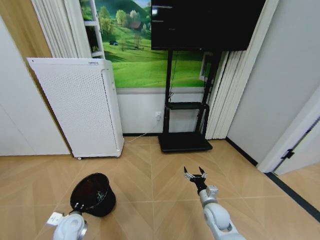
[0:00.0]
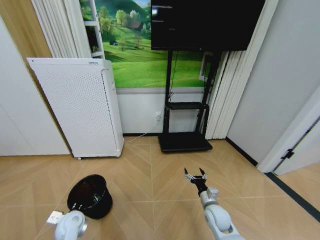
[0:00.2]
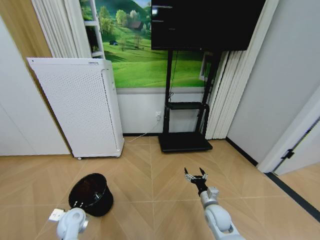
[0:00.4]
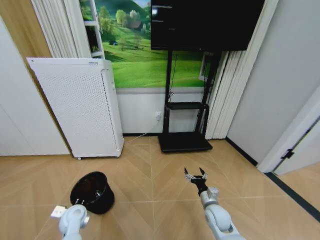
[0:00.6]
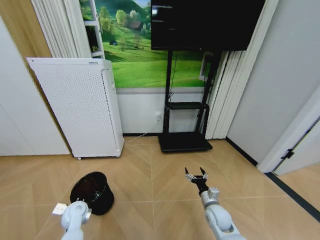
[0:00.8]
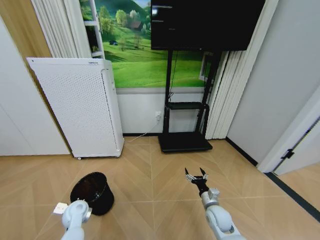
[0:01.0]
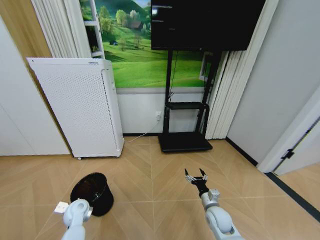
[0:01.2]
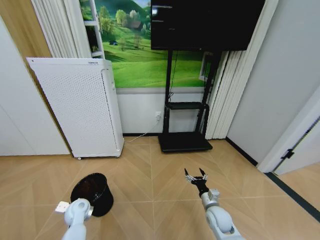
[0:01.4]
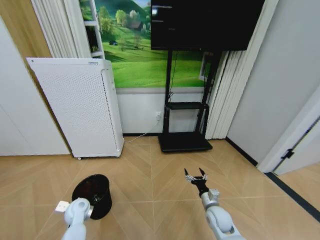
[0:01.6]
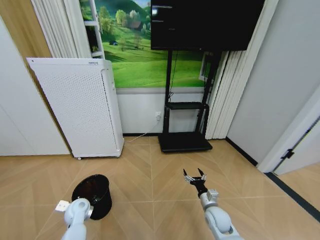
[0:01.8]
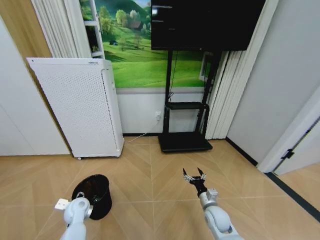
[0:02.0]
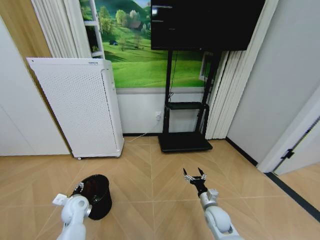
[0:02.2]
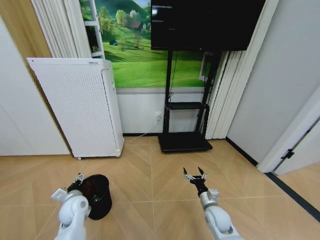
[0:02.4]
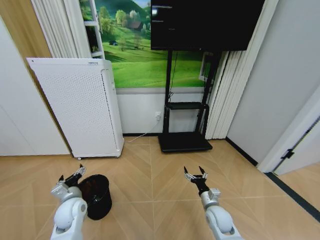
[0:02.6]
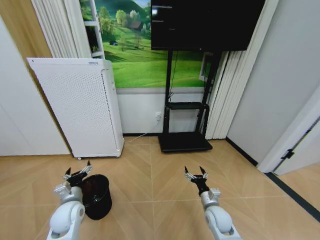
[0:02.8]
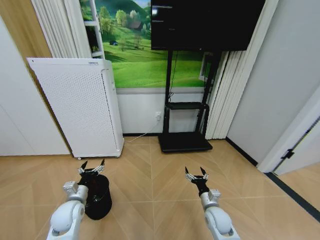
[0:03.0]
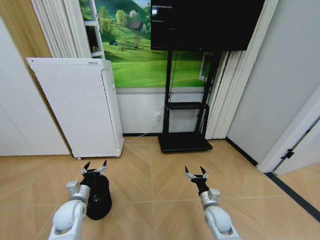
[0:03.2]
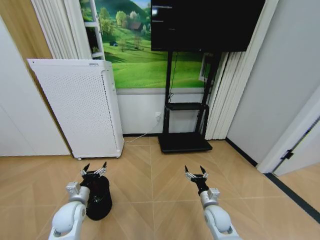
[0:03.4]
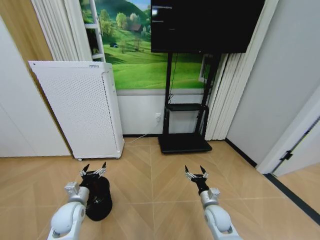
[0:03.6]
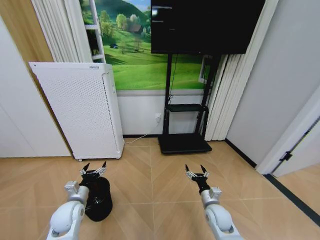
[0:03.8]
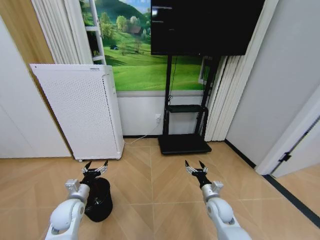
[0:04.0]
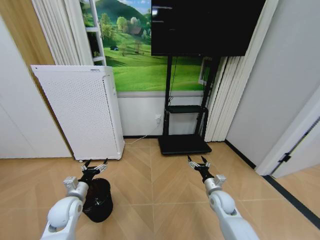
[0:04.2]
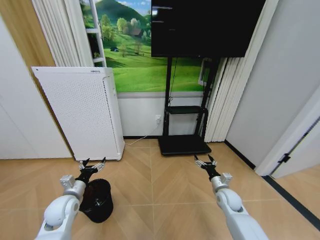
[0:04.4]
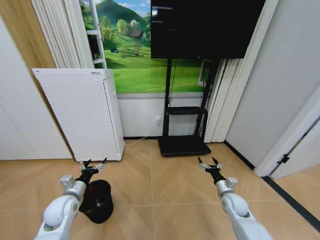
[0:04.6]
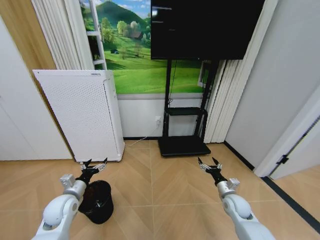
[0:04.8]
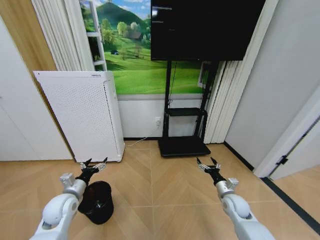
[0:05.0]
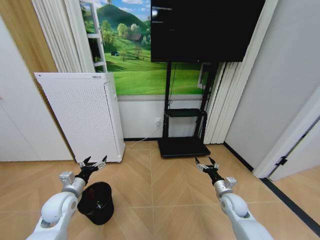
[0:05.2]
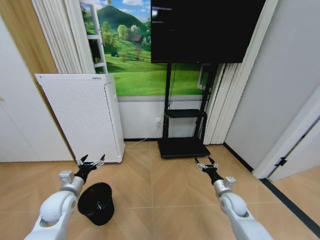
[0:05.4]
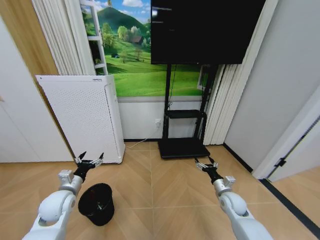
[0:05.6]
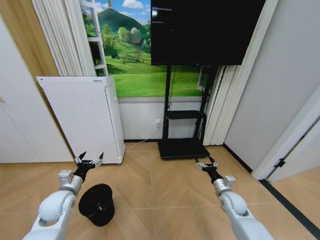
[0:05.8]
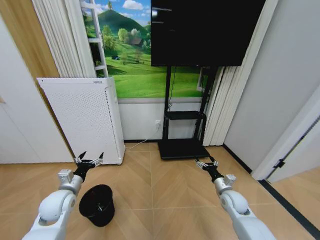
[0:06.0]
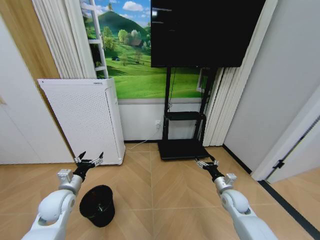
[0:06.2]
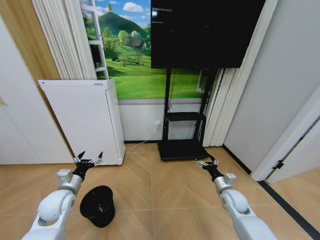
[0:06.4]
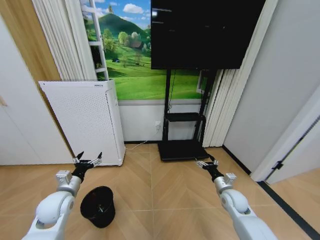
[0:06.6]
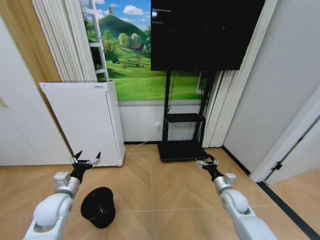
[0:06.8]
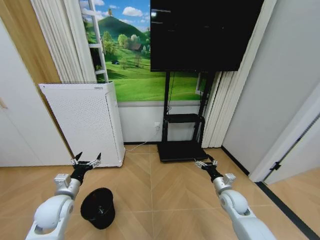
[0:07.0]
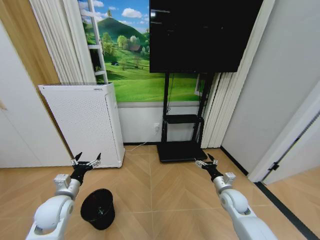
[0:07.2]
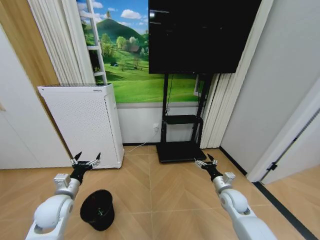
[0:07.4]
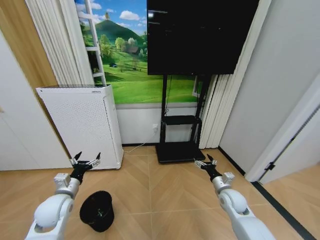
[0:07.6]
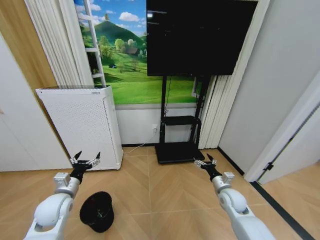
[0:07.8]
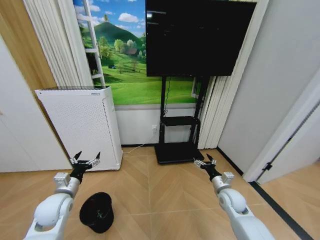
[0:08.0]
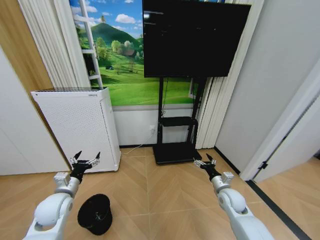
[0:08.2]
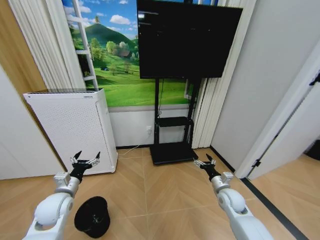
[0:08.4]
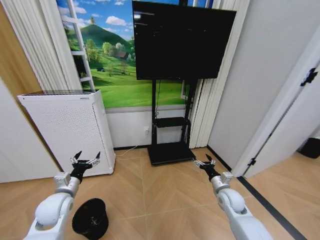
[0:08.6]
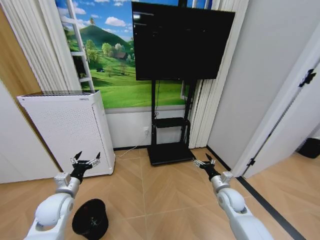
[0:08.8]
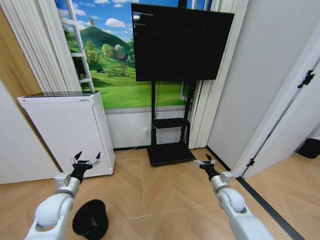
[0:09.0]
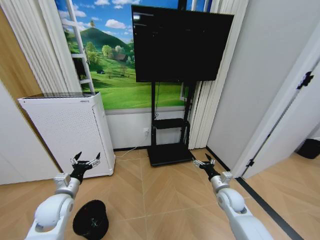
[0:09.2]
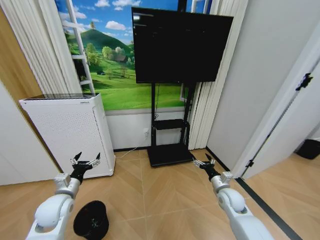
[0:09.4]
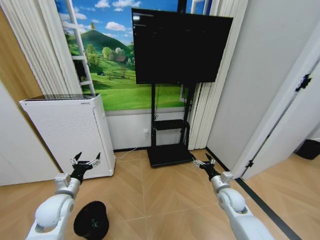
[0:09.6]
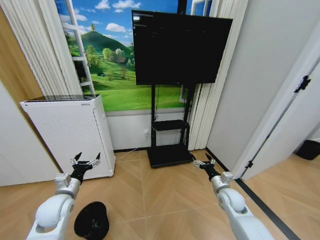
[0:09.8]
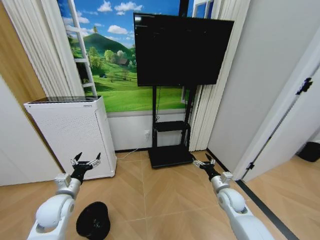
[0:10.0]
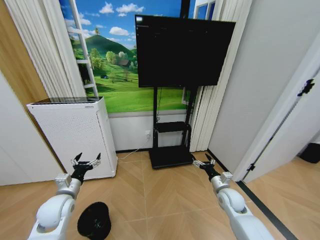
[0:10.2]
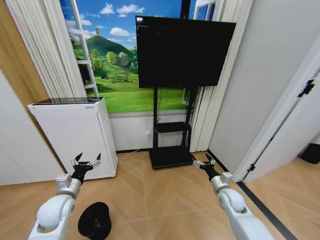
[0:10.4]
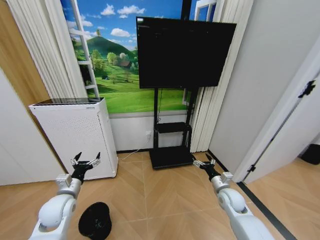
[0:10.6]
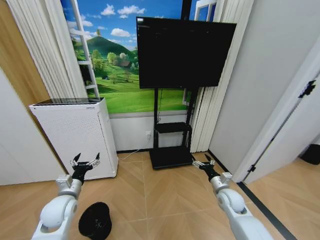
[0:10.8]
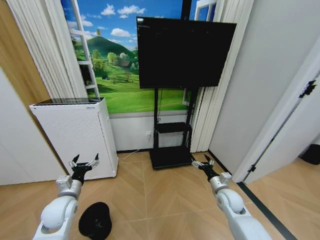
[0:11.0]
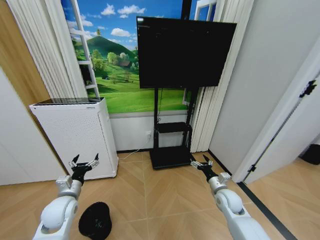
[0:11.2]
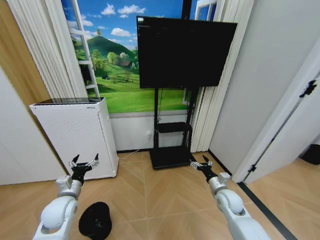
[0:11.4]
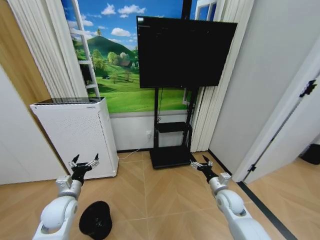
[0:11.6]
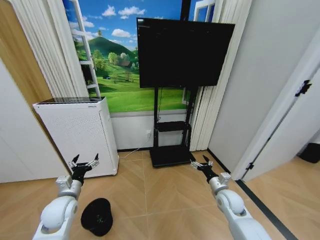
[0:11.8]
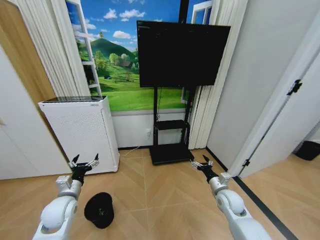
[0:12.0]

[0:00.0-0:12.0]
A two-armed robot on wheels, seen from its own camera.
Task of the whole recording: Pick up the trash bin and place the garbage on the floor into it.
0:00.0 to 0:01.6: The left gripper heads forward, covering about 5 cm.
0:01.6 to 0:03.0: The left gripper is displaced upward by some 5 cm, and opens its fingers.
0:03.0 to 0:04.4: The right gripper shifts approximately 10 cm to the right and forward.
0:04.4 to 0:06.0: The grippers stay close to where they were, moving slightly.

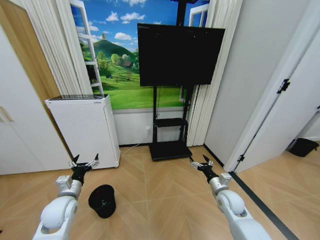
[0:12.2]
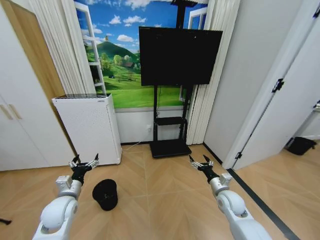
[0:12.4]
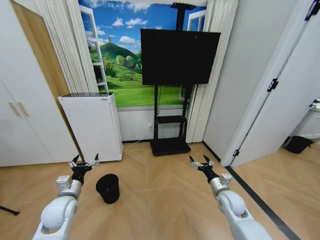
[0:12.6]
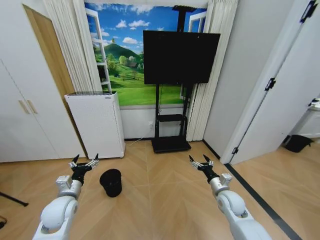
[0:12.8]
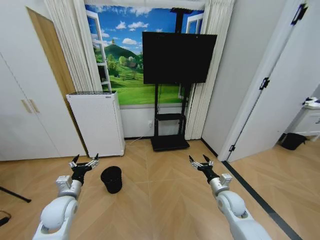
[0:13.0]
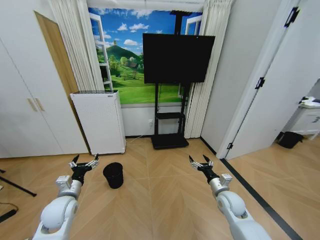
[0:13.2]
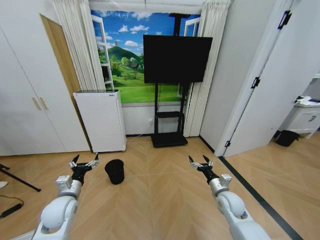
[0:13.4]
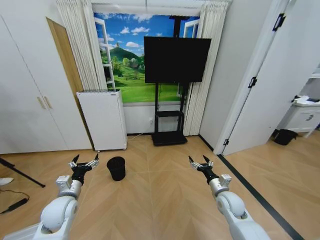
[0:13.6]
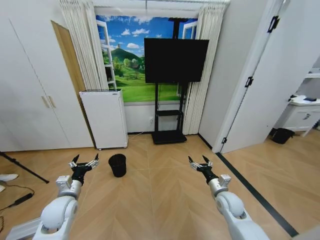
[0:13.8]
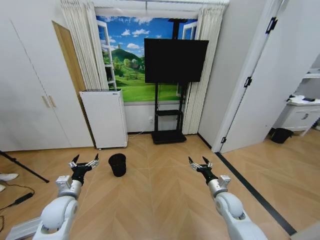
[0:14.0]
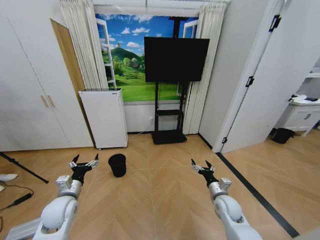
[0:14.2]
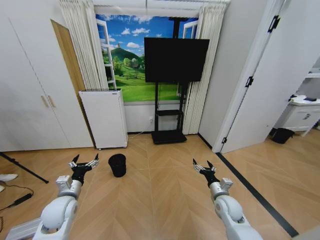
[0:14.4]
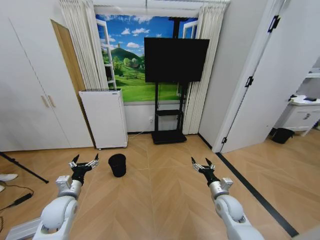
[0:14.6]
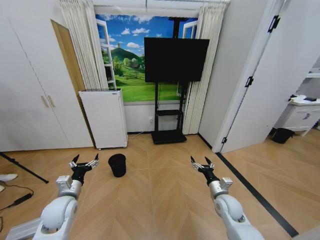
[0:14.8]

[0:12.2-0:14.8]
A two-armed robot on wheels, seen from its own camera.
Task of the whole recording: Pick up the trash bin and place the garbage on the floor into it.
0:13.4 to 0:14.8: The grippers stay close to where they were, moving slightly.

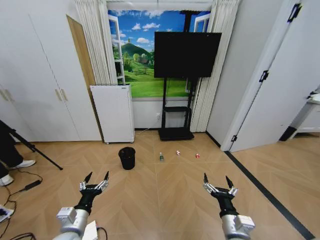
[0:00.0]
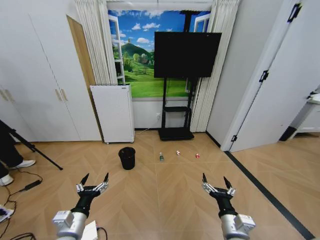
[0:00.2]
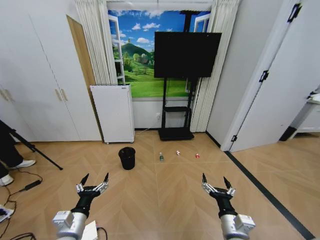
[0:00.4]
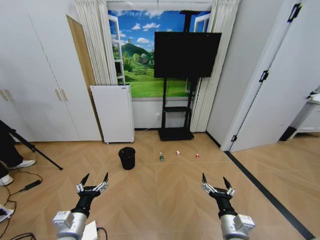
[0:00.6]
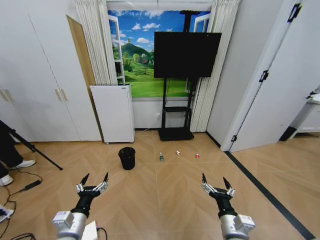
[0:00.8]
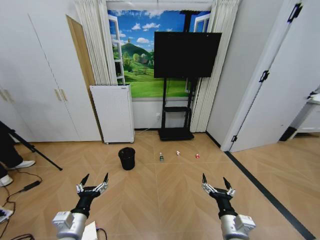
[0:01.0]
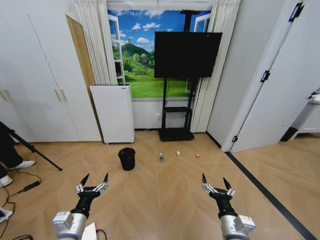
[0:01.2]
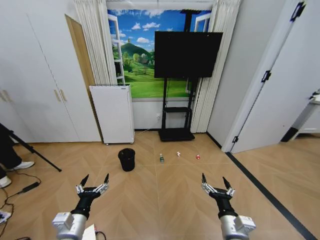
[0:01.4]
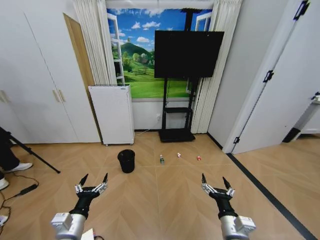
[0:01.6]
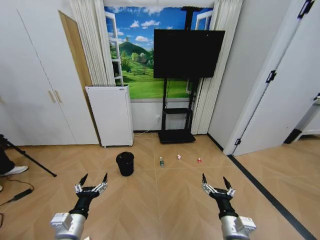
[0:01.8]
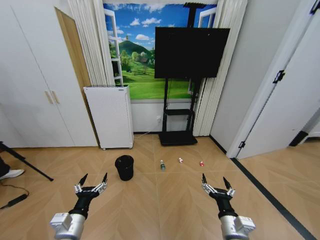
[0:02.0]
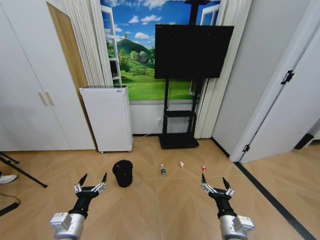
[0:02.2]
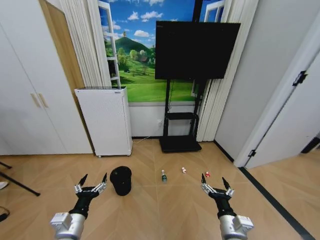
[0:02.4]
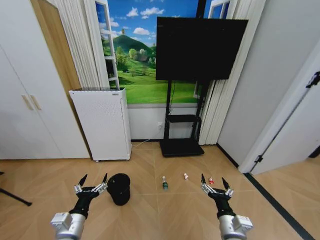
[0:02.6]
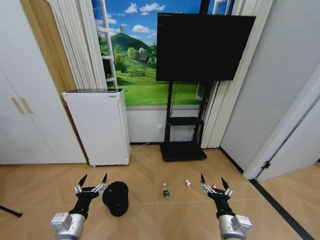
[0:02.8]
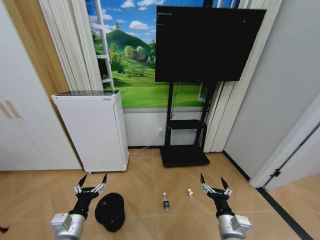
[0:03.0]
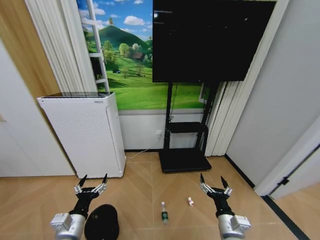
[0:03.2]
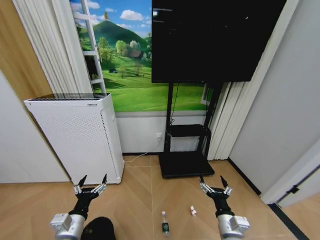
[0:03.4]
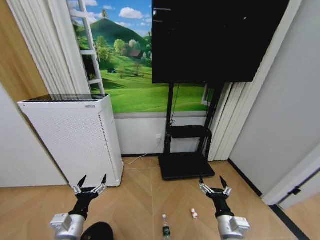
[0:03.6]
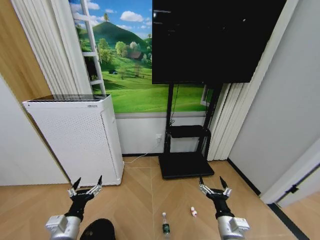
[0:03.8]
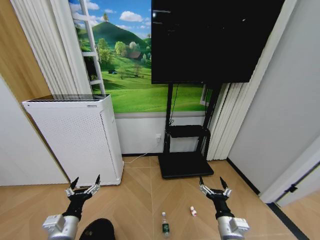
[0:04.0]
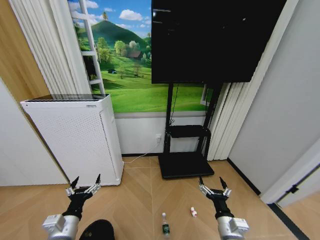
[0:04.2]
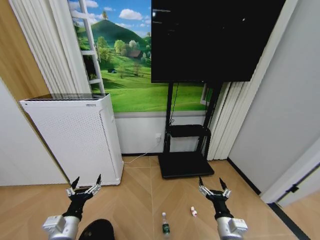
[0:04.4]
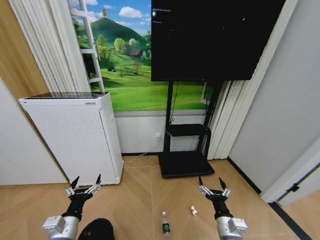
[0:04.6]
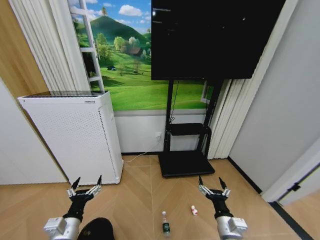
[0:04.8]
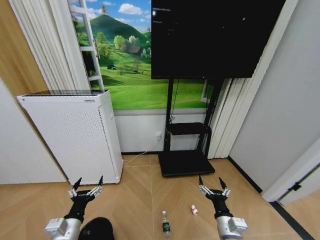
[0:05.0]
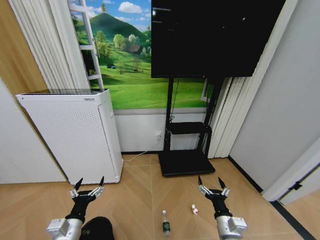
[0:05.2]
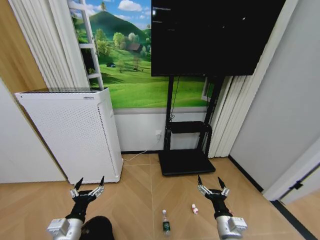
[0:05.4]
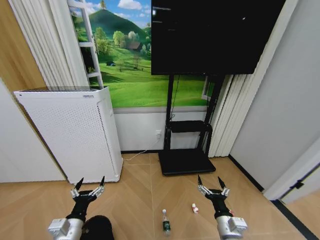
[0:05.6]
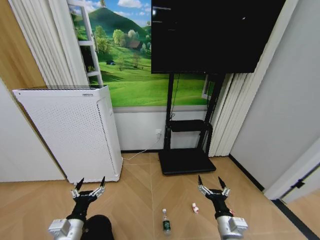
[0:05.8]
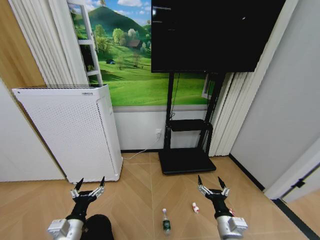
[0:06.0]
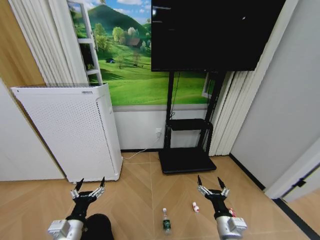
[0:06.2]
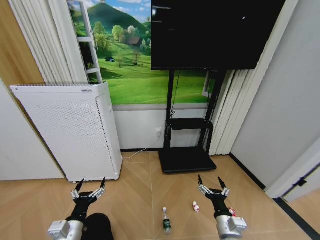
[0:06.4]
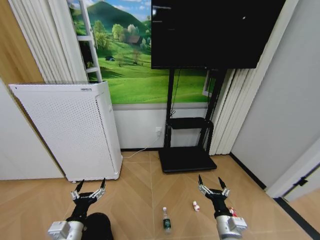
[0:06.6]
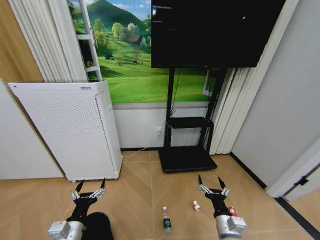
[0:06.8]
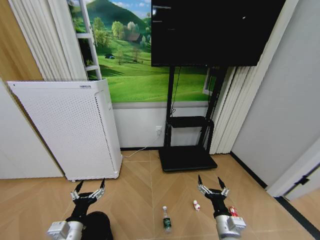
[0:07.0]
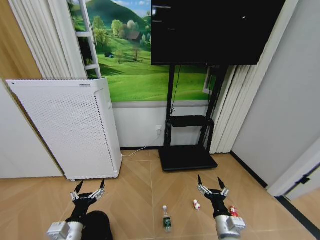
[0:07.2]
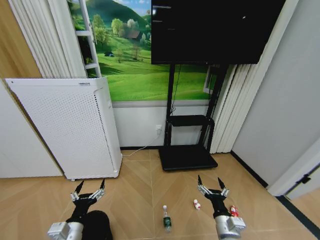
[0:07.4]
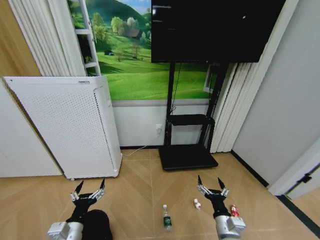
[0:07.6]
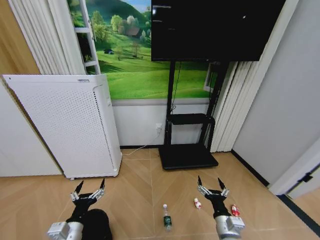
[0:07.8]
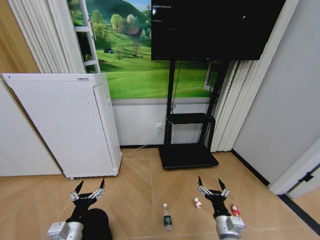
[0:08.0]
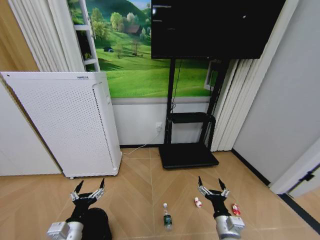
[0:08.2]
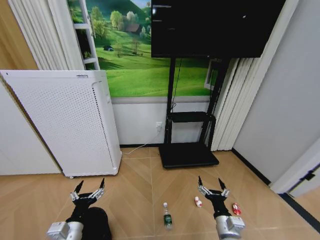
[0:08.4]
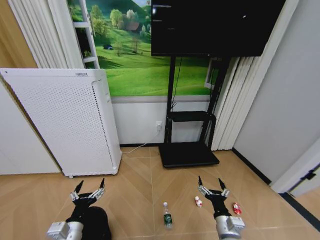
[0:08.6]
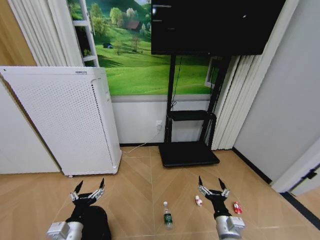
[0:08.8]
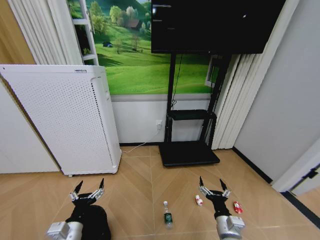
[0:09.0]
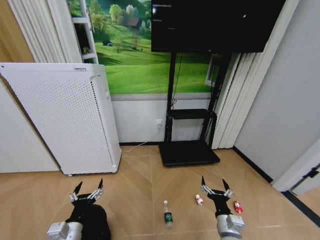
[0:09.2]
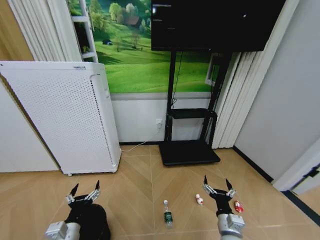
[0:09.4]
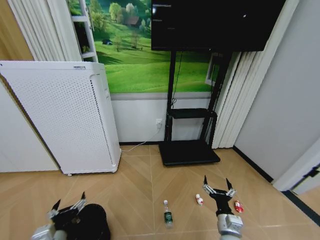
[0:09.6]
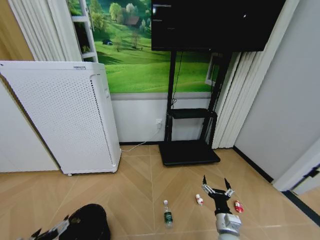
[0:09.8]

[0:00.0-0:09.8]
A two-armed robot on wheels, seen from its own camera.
Task of the whole recording: Pick up the trash bin and place the garbage on the floor into it.
0:04.2 to 0:05.6: The grippers stay close to where they were, moving slightly.
0:05.6 to 0:08.4: The two grippers keep their place.
0:08.4 to 0:09.8: The left gripper travels to the left and backward by about 10 cm.
